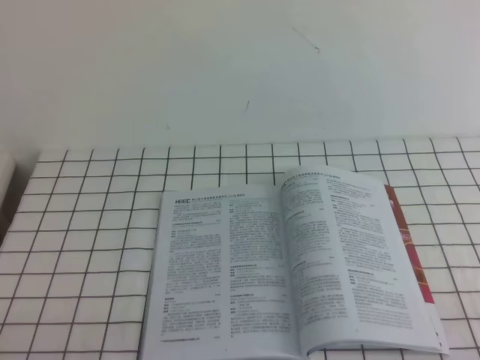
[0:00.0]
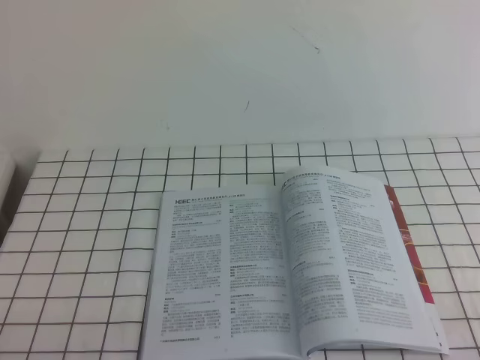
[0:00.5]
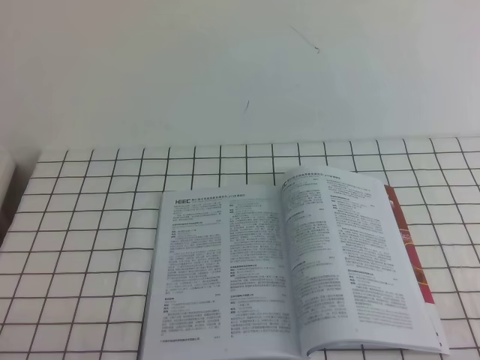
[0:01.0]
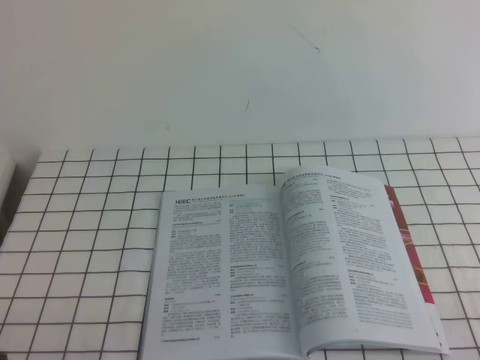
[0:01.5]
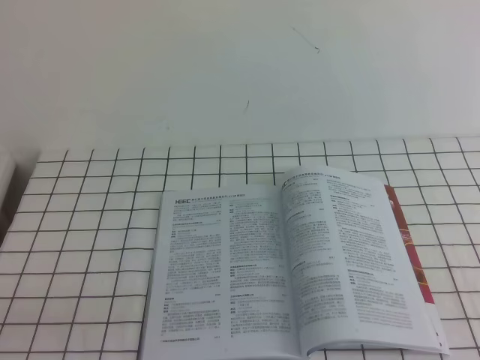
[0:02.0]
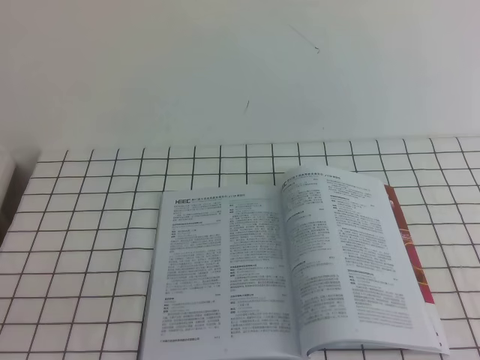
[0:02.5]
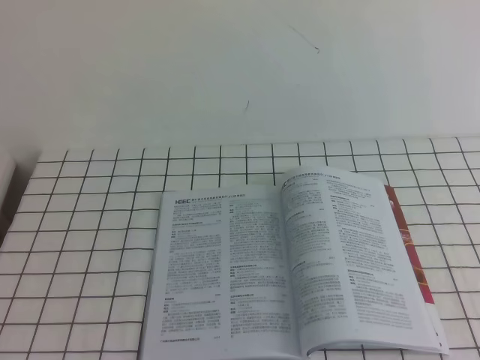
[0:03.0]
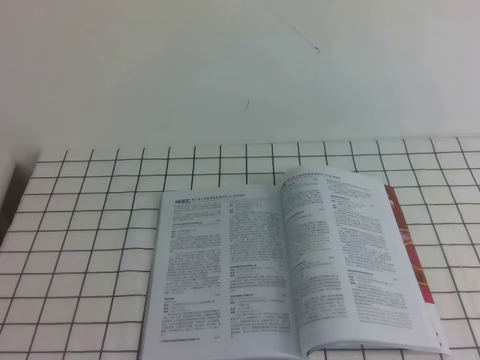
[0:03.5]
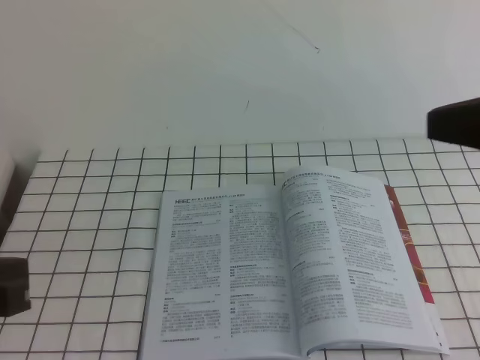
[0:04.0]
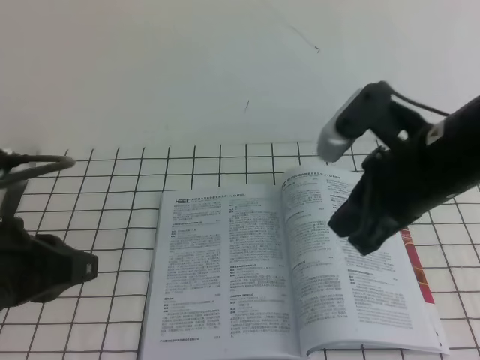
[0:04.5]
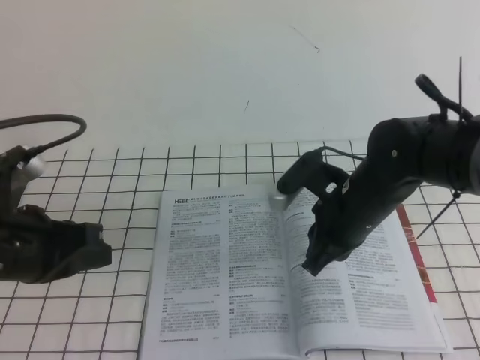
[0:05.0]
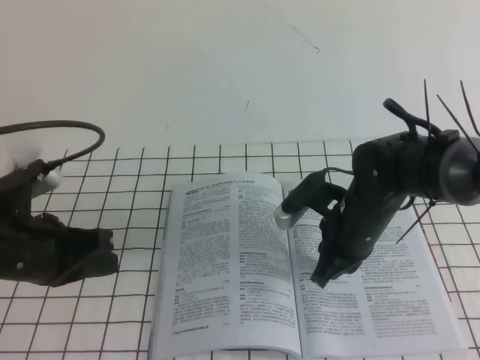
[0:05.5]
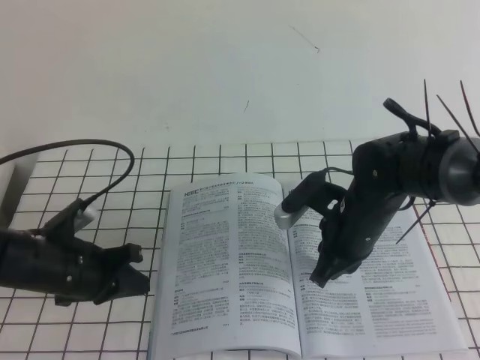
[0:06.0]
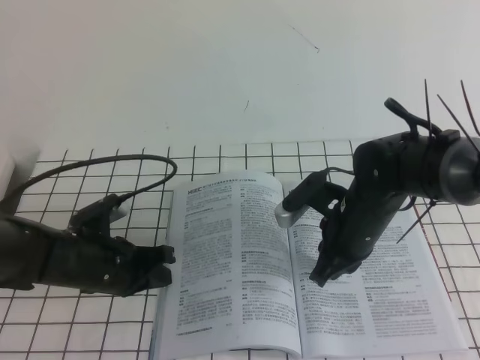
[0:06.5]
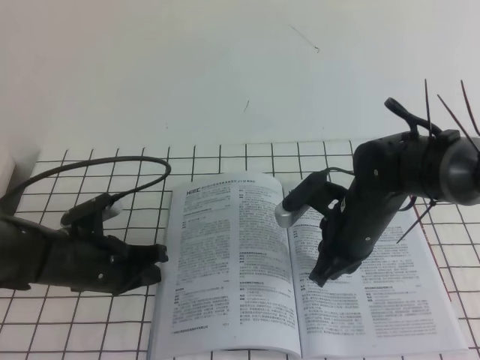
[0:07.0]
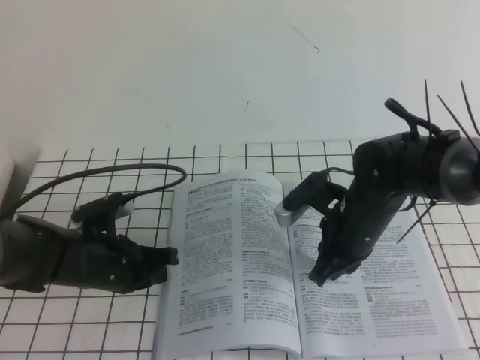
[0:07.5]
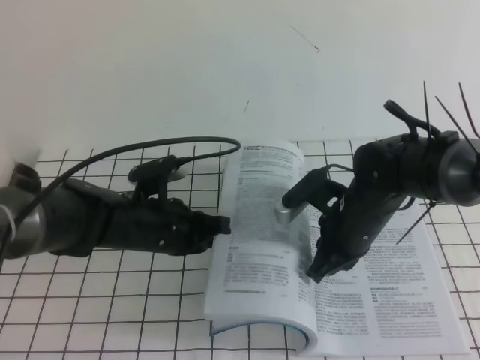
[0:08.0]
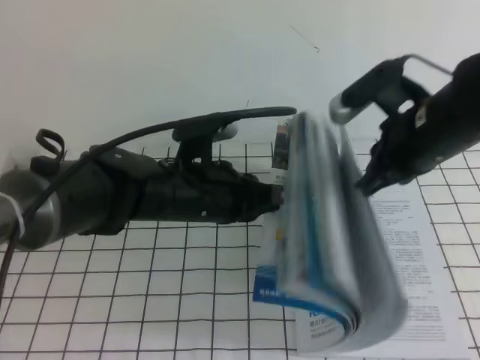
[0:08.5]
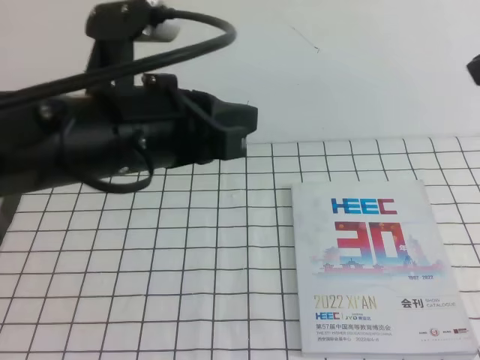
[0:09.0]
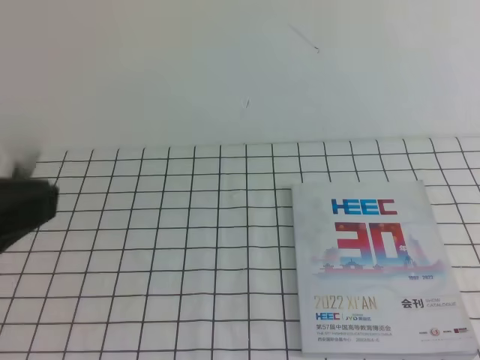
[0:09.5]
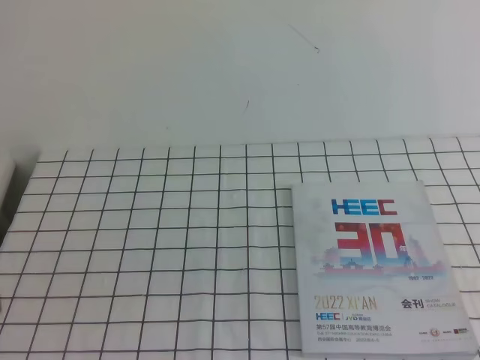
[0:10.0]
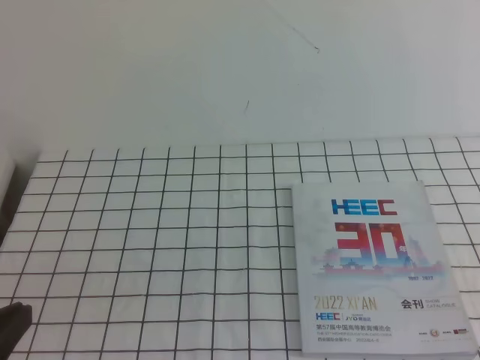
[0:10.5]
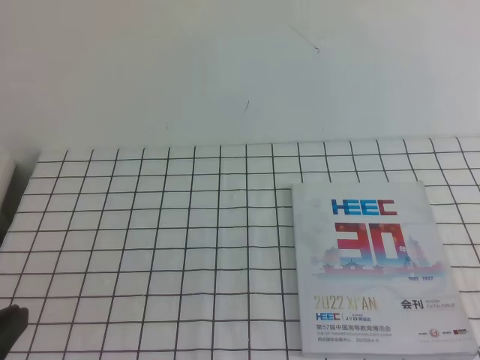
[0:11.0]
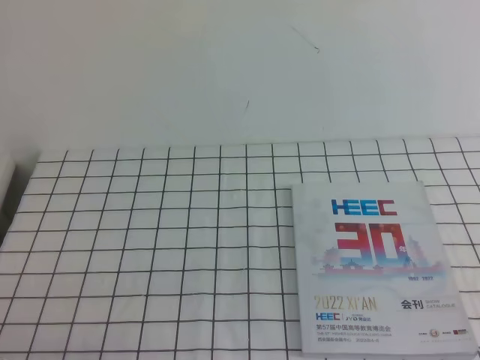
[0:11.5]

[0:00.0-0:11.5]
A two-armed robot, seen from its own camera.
Task of the whole recording: on the white tablecloth, hold the book with one hand and close it with the other.
0:02.0 to 0:04.0: The right gripper heads forward, upward and to the left, covering some 25 cm; the left gripper goes approximately 15 cm upward and forward.
0:04.0 to 0:06.0: The right gripper moves downward, to the left and forward, roughly 30 cm, while the left gripper moves downward and forward, roughly 25 cm.
0:06.0 to 0:07.5: There are only small adjustments of the grippers.
0:07.5 to 0:09.5: The right gripper travels upward, backward and to the right by about 40 cm. Meanwhile the left gripper is displaced upward and backward by roughly 35 cm.
0:09.5 to 0:11.5: The left gripper is displaced downward by about 20 cm.

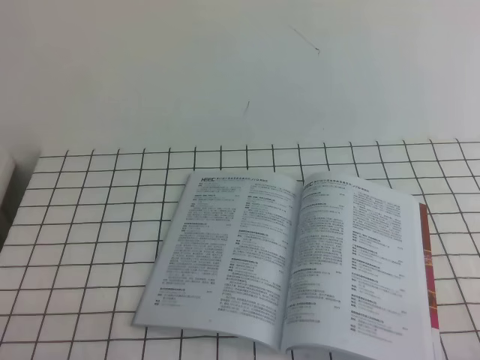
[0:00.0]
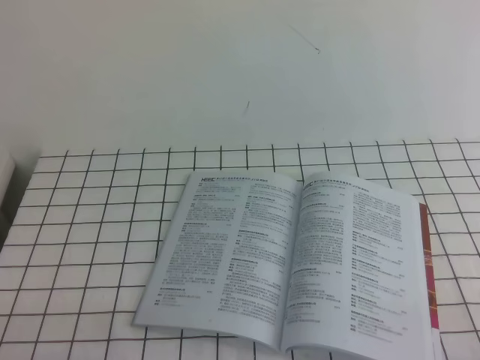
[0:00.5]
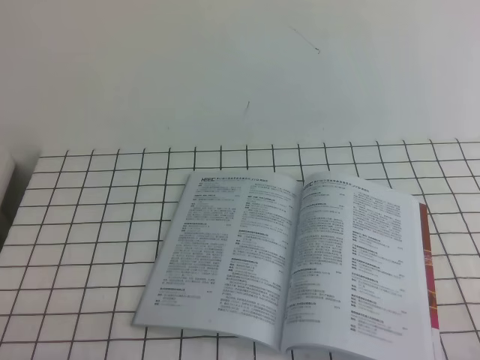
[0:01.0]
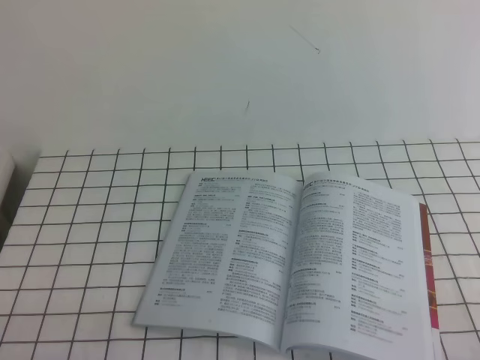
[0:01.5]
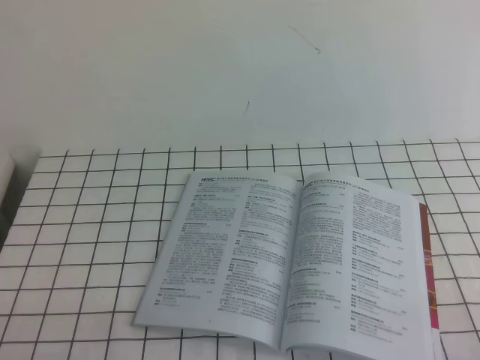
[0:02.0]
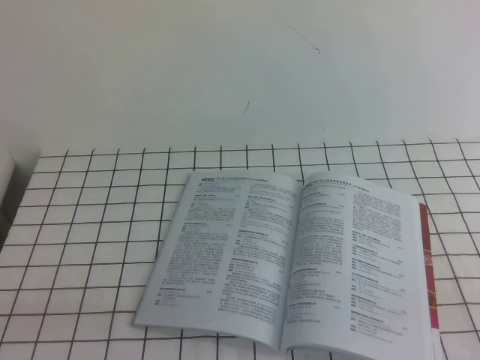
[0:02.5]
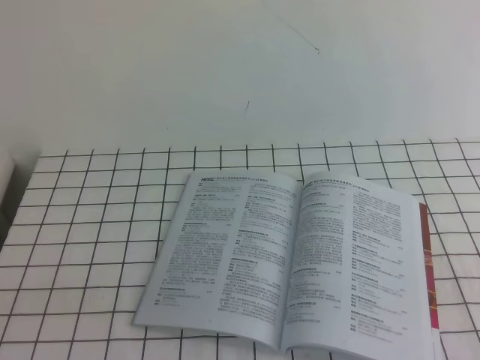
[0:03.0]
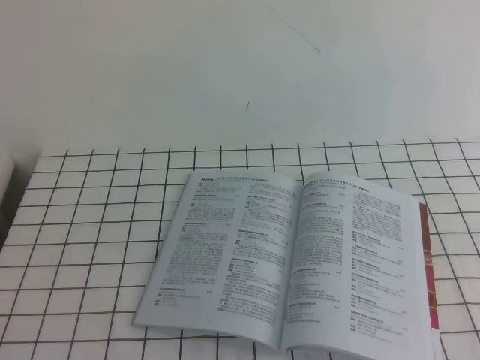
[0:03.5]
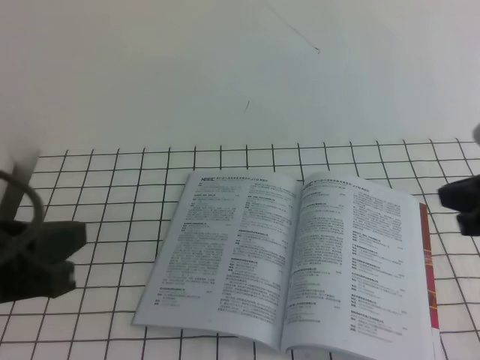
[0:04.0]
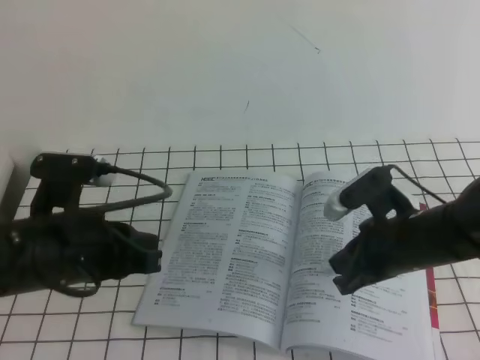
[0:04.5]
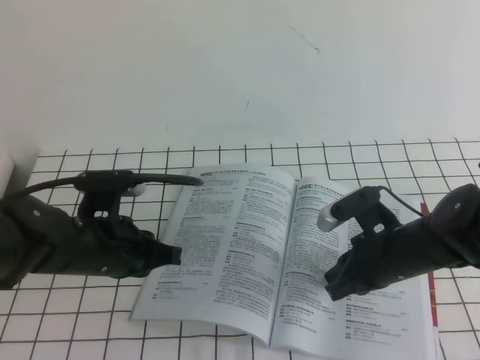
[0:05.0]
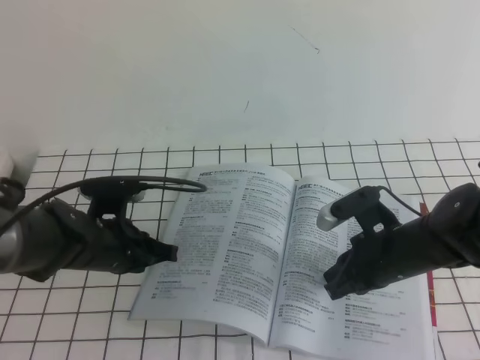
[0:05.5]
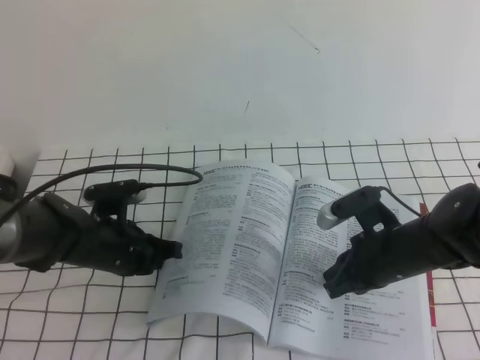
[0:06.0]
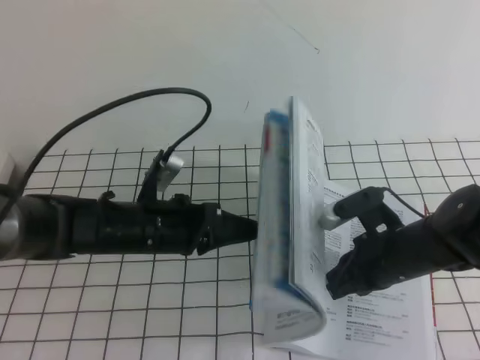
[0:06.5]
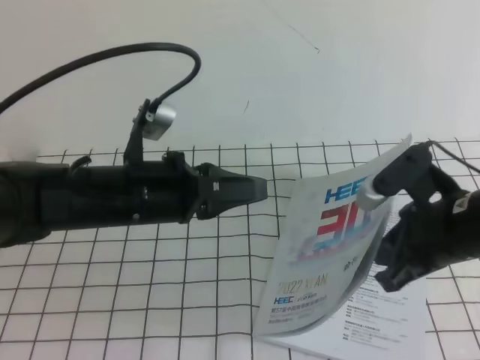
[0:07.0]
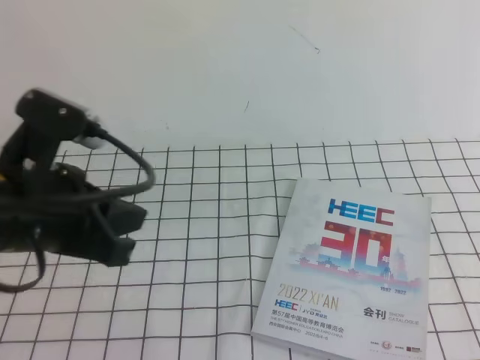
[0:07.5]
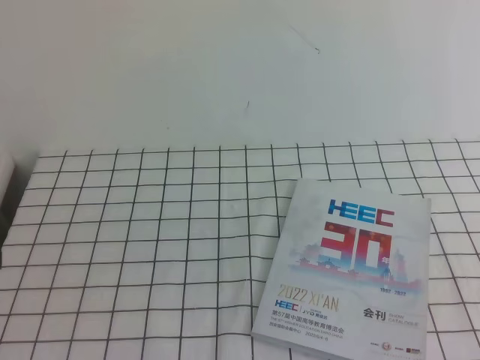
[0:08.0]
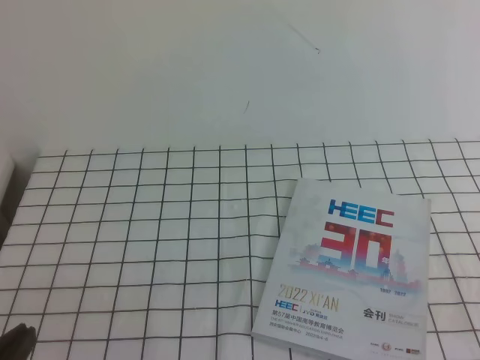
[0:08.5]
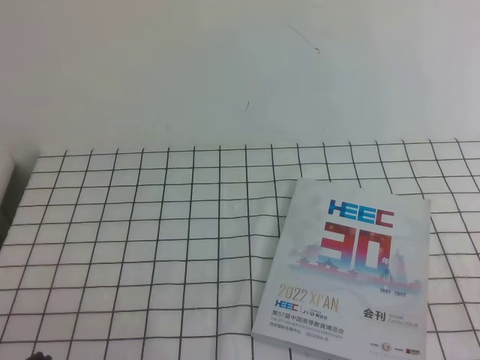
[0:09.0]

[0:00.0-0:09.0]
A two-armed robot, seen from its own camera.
Task of the whole recording: on the white tablecloth, hold the book with one hand and close it with the other.
0:00.0 to 0:02.0: The two grippers keep their place.
0:02.0 to 0:04.5: The right gripper heads forward and to the left, covering approximately 30 cm; the left gripper travels forward, upward and to the right by roughly 20 cm.
0:04.5 to 0:07.0: The right gripper changes place by approximately 5 cm, while the left gripper moves forward and to the right, about 10 cm, and moves roughly 15 cm downward and comes back.
0:07.0 to 0:09.0: The left gripper moves backward and to the left, roughly 25 cm. Meanwhile the right gripper is displaced backward and to the right by about 20 cm.

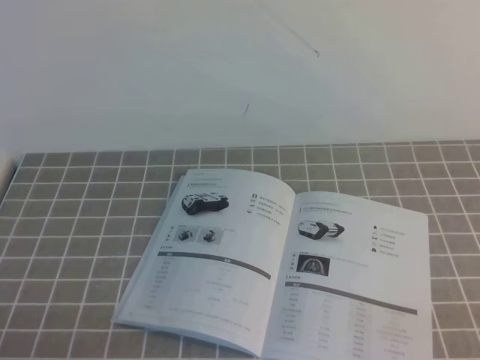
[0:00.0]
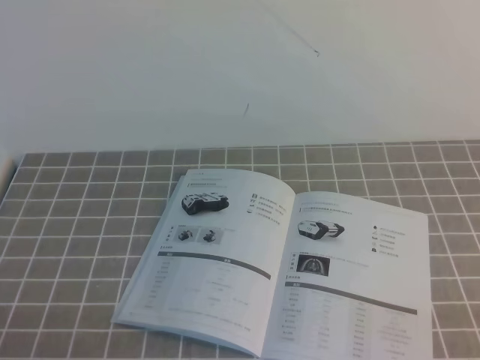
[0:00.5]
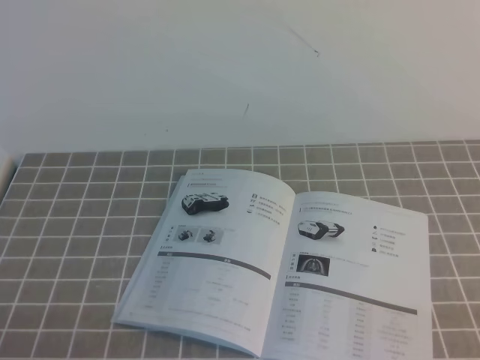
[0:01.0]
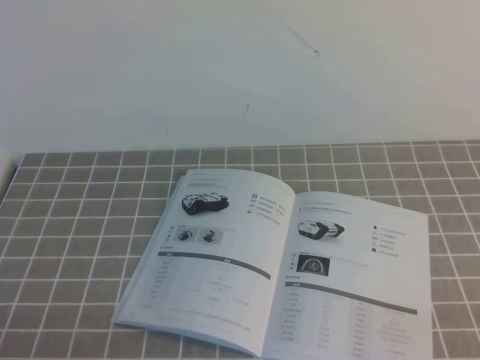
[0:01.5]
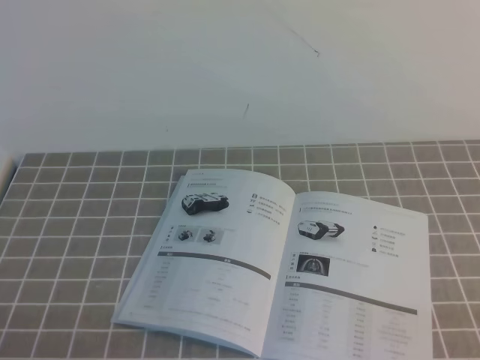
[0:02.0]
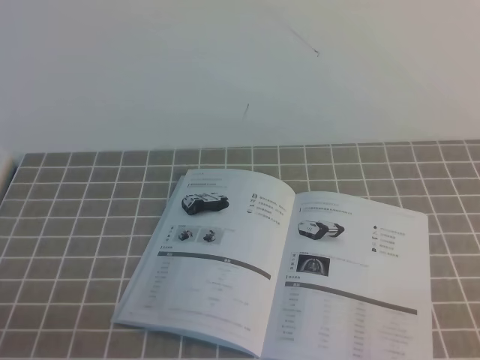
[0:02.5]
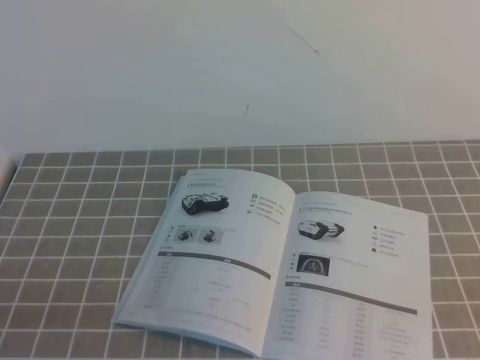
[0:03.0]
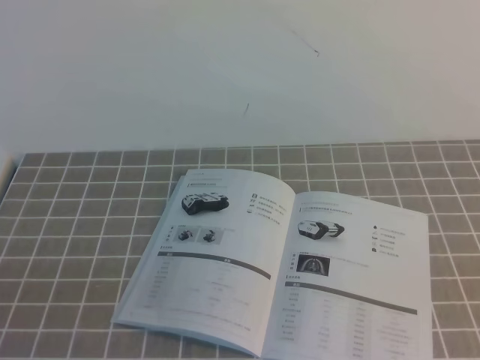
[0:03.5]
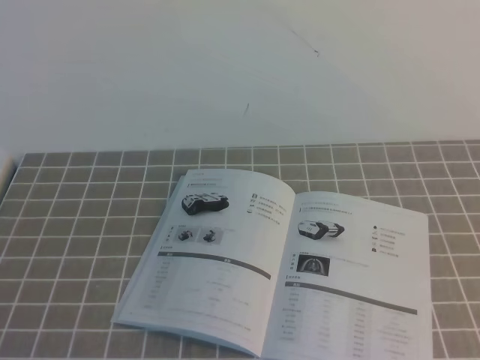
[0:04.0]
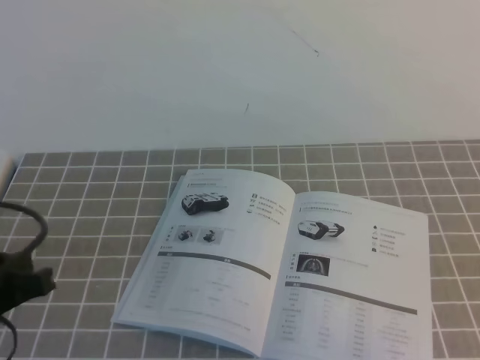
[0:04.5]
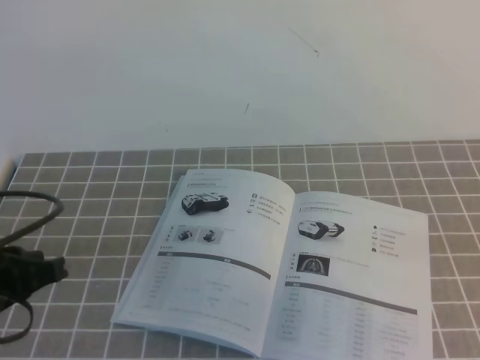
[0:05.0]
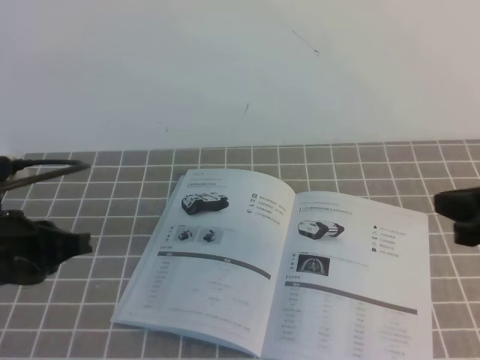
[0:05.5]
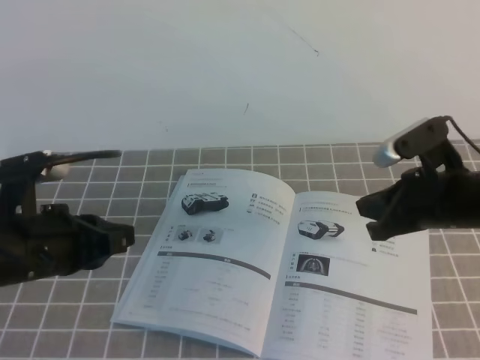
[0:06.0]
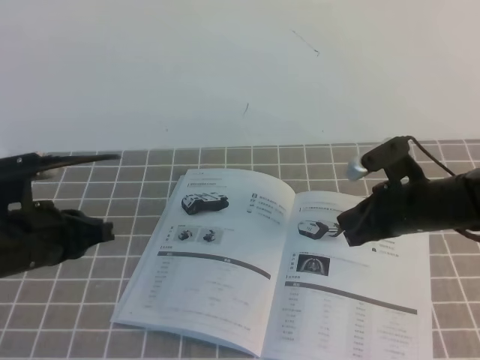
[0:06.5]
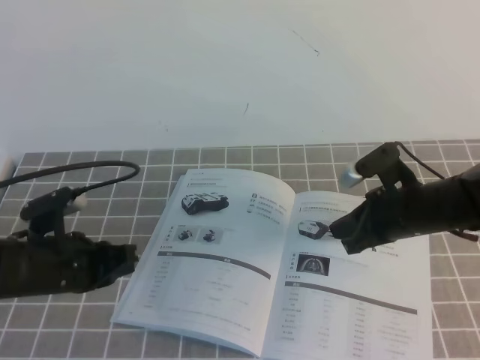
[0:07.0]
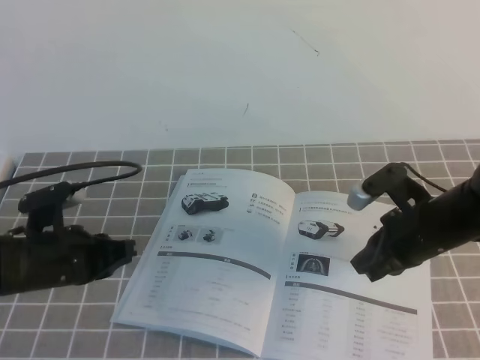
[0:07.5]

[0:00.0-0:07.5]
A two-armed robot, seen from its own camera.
Task of the whole recording: on the grey tablecloth, hold the book with one hand and close it with the other.
0:00.0 to 0:02.0: Both grippers stay about where they are.
0:04.0 to 0:05.5: The right gripper shifts some 20 cm forward. Meanwhile the left gripper moves forward and downward, roughly 15 cm.
0:05.5 to 0:07.5: The right gripper is displaced downward, to the left and forward by roughly 15 cm; the left gripper heads downward and forward, covering about 10 cm.
